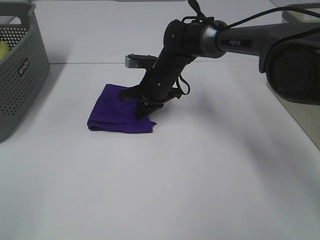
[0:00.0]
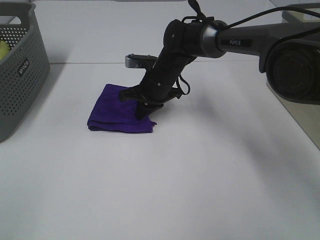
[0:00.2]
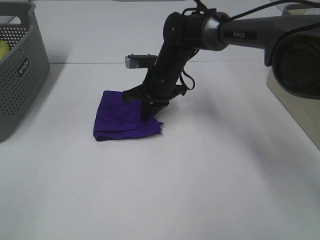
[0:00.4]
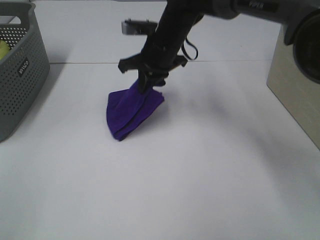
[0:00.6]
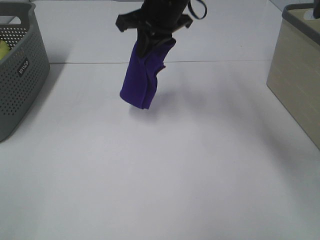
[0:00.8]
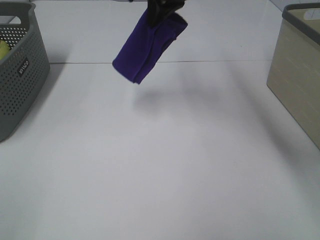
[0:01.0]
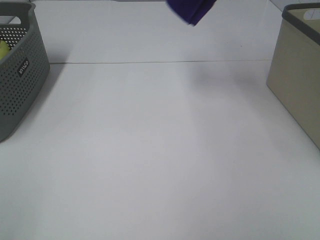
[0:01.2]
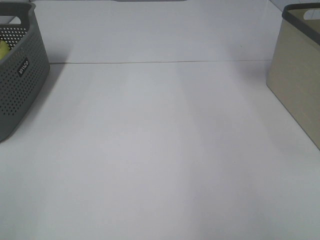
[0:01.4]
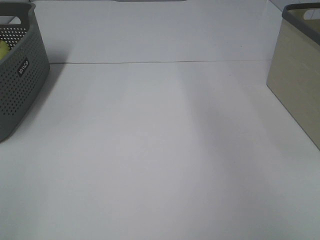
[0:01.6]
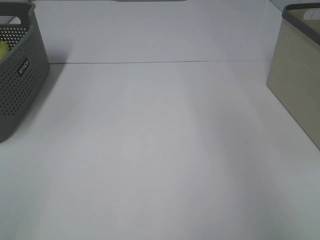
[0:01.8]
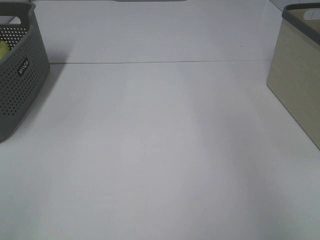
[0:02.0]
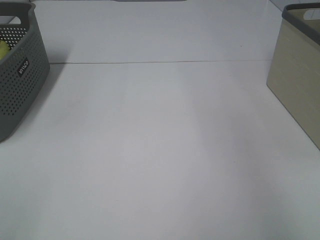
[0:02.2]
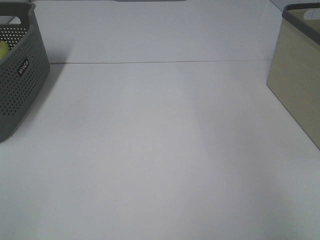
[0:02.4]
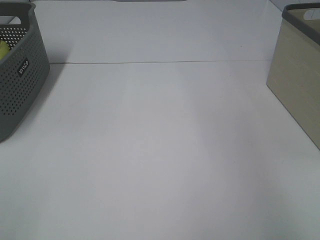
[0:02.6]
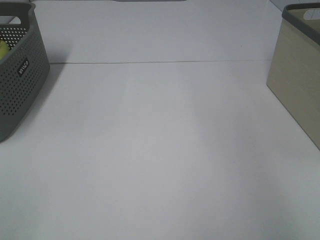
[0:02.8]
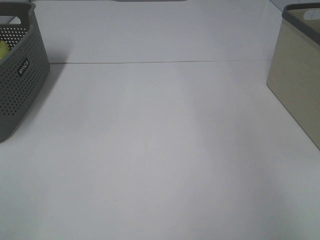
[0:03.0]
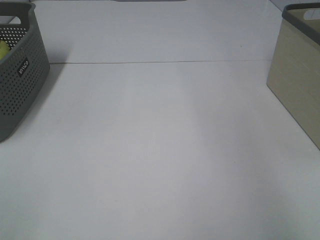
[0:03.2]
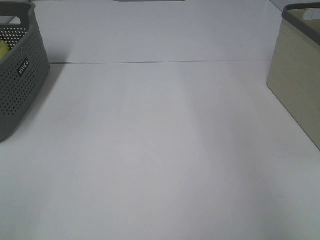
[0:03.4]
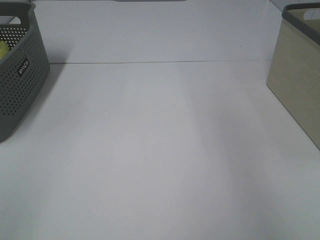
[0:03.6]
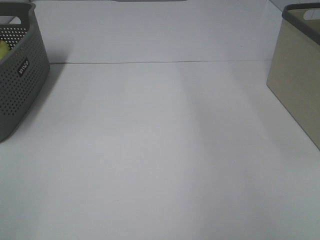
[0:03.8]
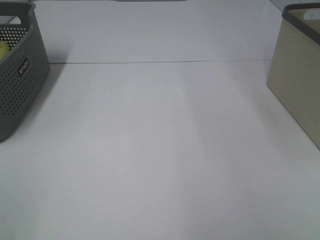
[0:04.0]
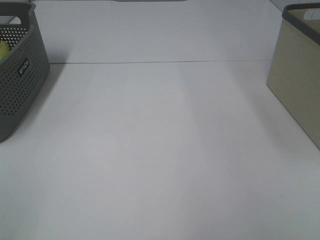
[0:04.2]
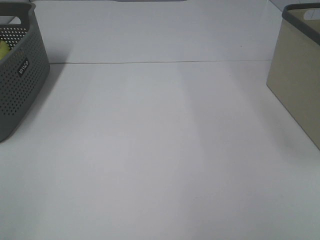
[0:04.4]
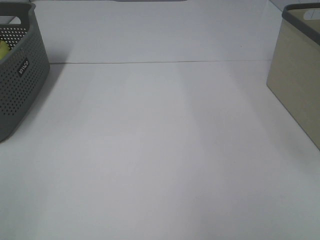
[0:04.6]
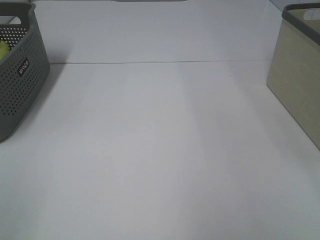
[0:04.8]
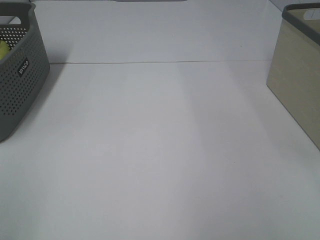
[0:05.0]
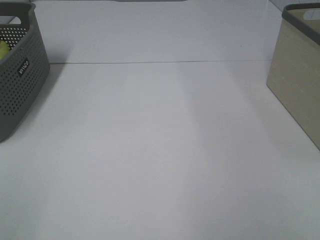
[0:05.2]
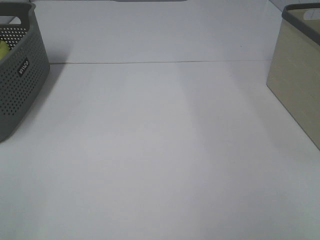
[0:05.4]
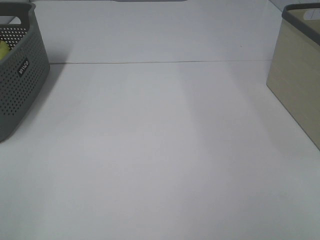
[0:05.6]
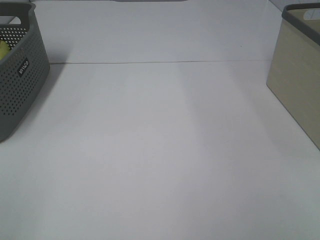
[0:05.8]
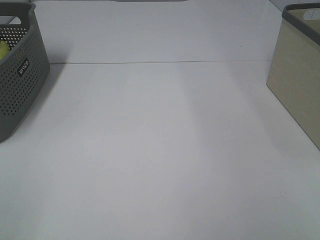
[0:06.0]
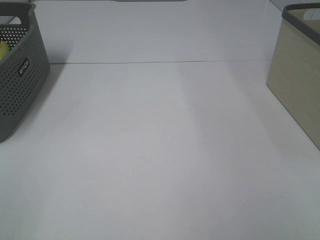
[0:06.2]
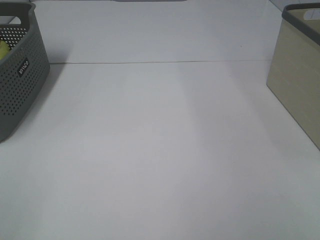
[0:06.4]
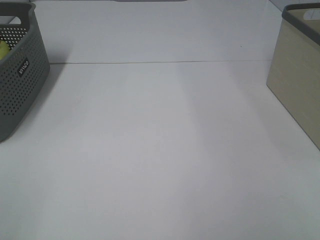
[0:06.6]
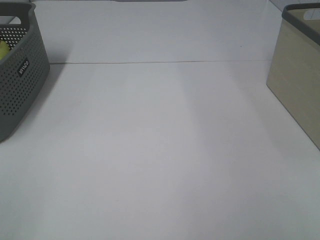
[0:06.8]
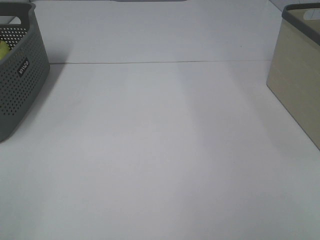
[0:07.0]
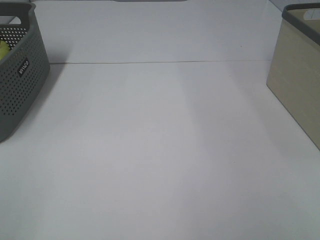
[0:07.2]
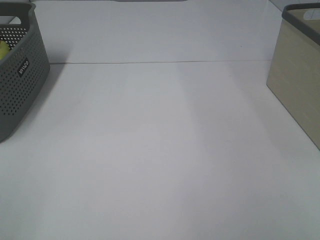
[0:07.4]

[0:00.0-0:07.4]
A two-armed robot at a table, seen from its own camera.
Step, 0:00.2 to 0:02.6: Right hand: place the purple towel in right basket.
0:00.0 to 0:01.4: The right gripper heads upward and to the right, covering approximately 40 cm.
